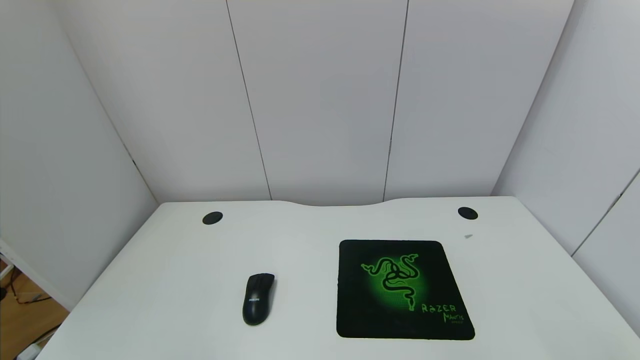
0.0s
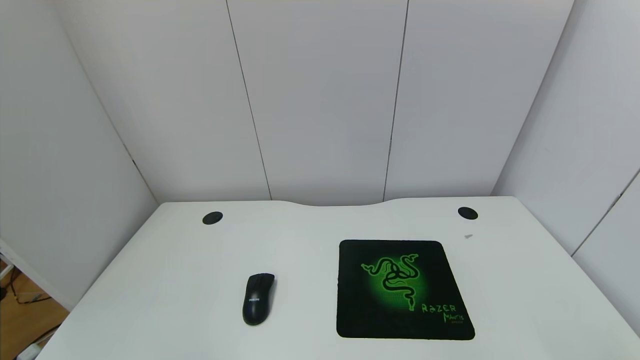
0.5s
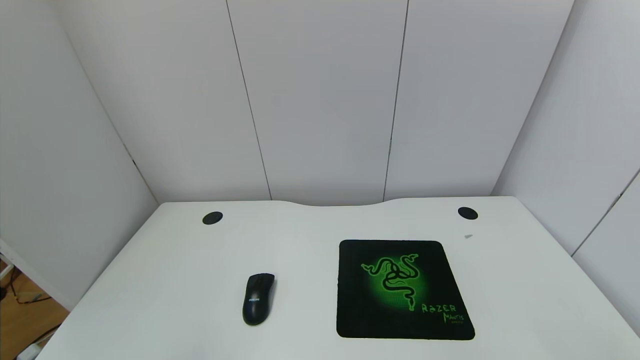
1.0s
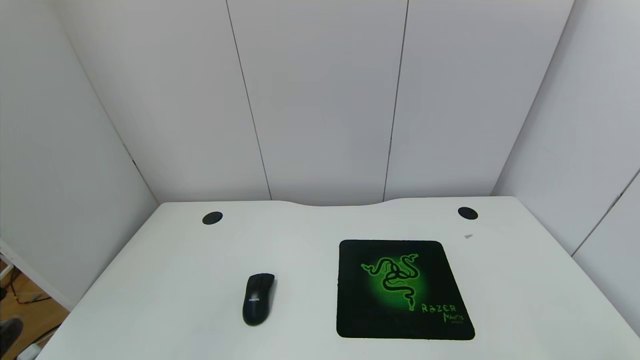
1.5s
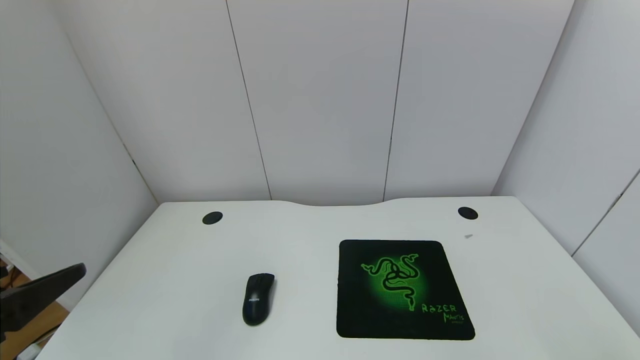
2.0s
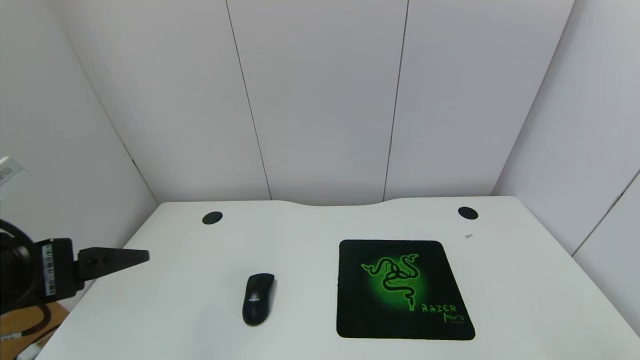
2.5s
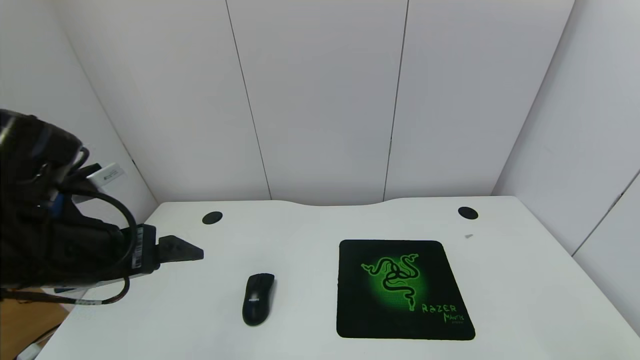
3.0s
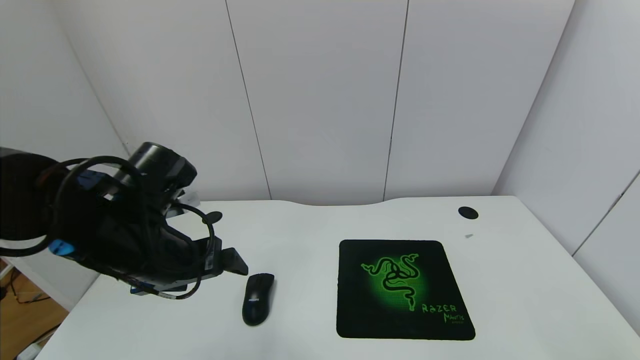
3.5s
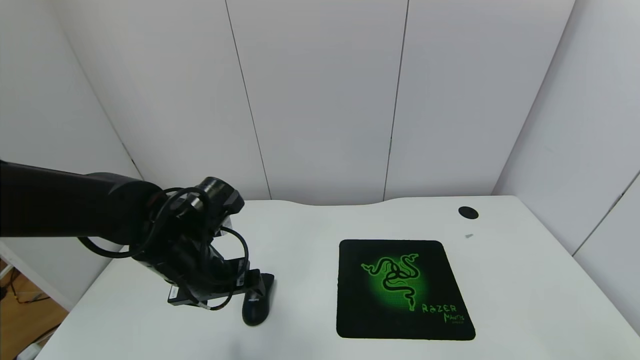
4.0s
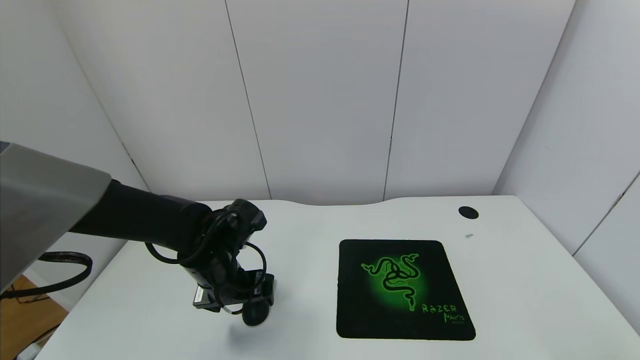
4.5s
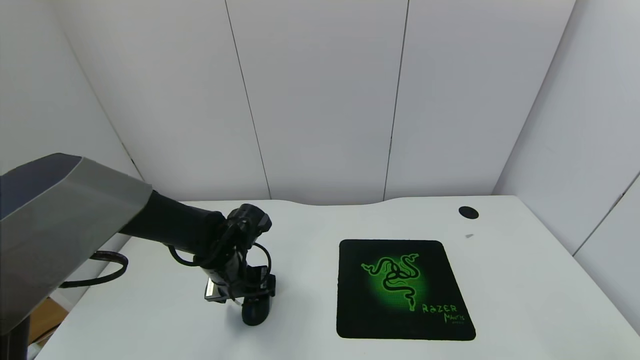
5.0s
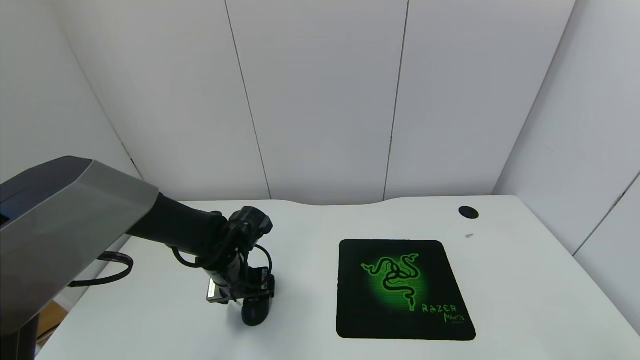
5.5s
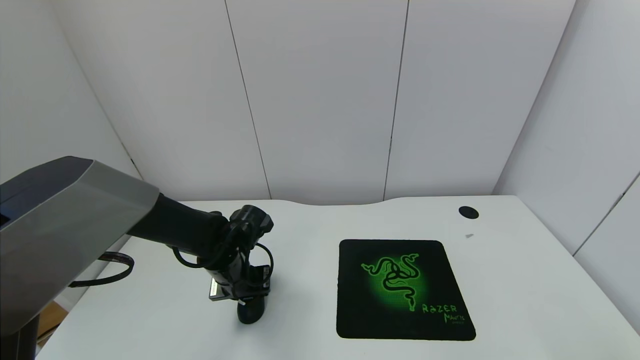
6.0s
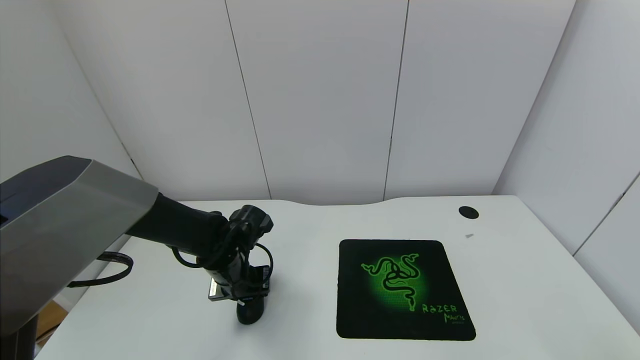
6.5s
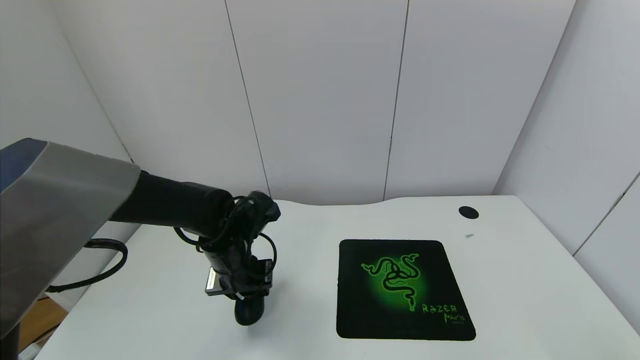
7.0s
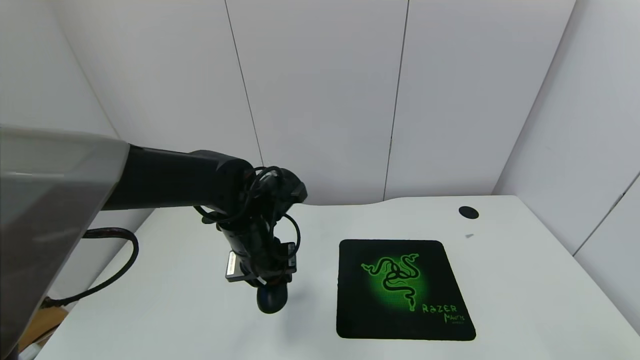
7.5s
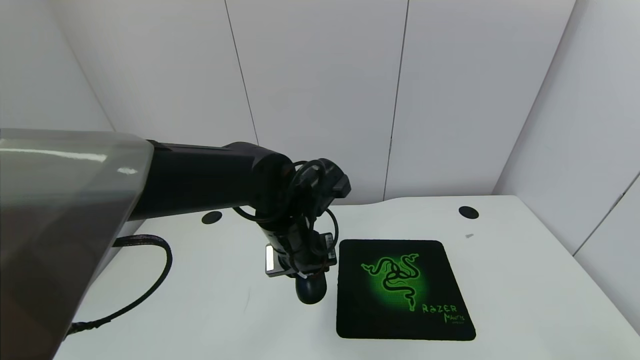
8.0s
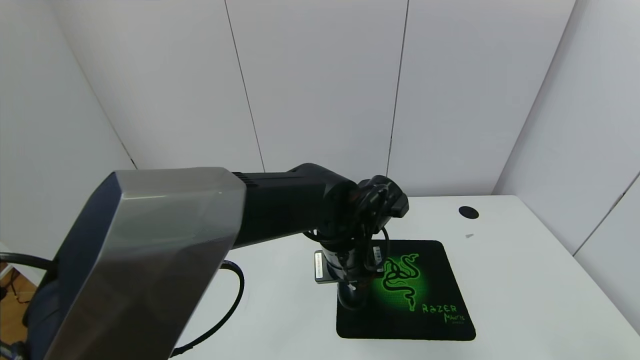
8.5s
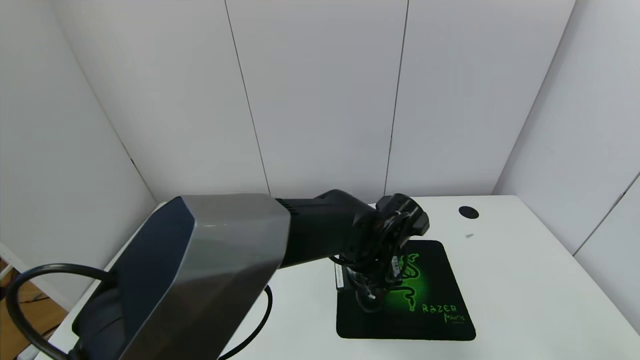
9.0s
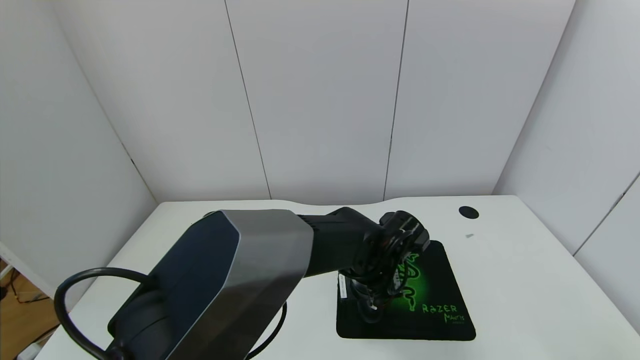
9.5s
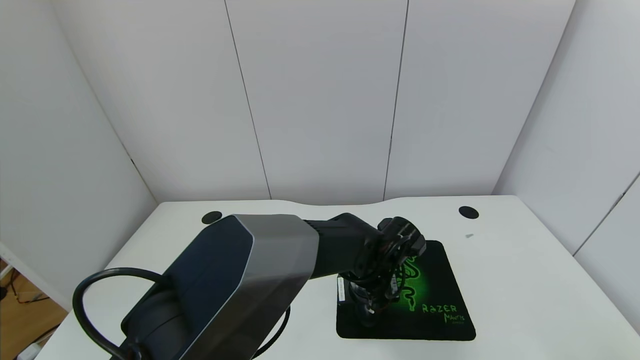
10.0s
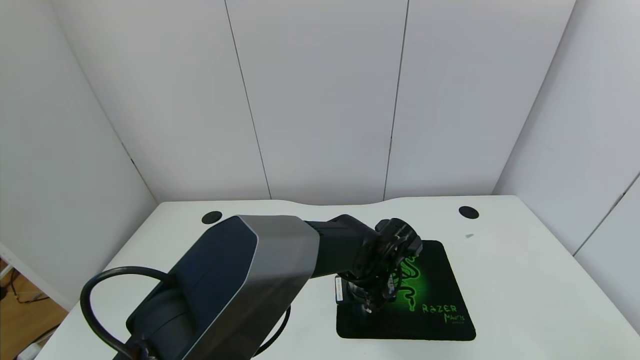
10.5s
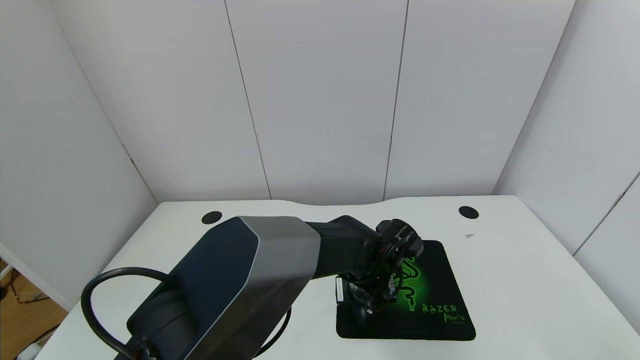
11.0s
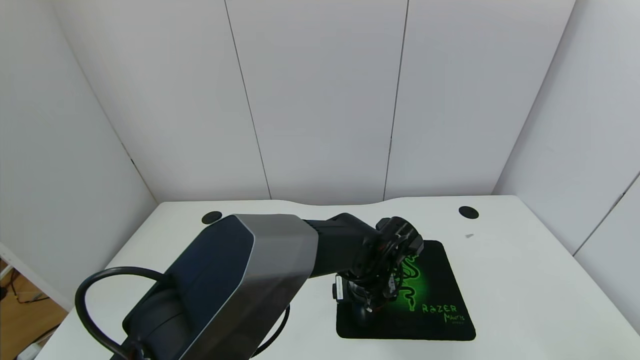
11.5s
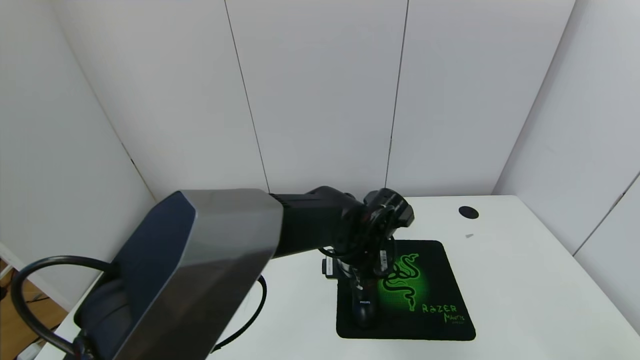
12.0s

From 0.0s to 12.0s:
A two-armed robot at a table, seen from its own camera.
Task of the whole recording: use the gripper to move the mouse from one side of the table to the mouse pad on the opposite side.
Step, from 0.0s to 6.0s: Grasp the mouse with the left gripper.
Step, from 6.5s to 12.0s: Place the mouse on the mouse pad with the left gripper.
From 0.0s to 2.0s: The left gripper is displaced upward and forward by some 20 cm.
From 2.0s to 4.0s: The left gripper is displaced forward, to the right and downward by about 25 cm.
From 4.0s to 6.0s: The left gripper goes some 10 cm downward and forward, and closes.
From 6.0s to 8.0s: The left gripper moves to the right and upward, about 15 cm.
From 8.0s to 10.0s: The left gripper moves to the right and downward, roughly 15 cm.
From 10.0s to 12.0s: The left gripper ends up about 5 cm from where it was, and opens its fingers.

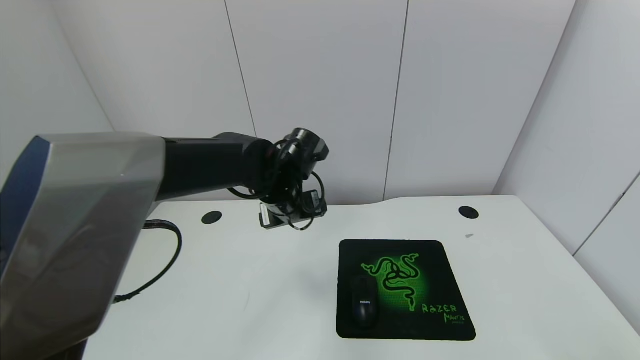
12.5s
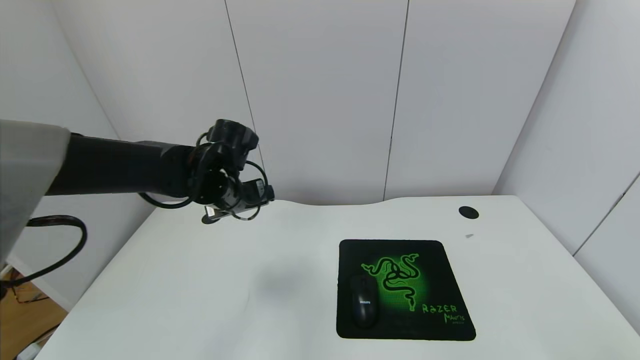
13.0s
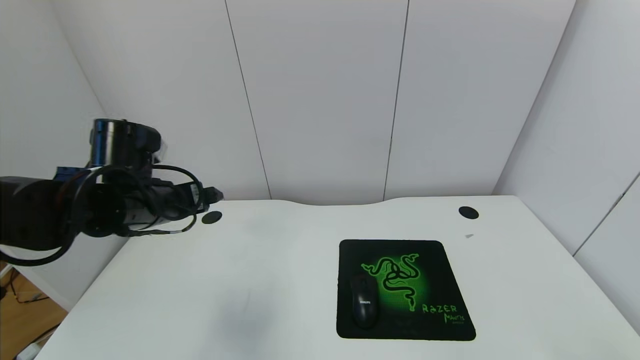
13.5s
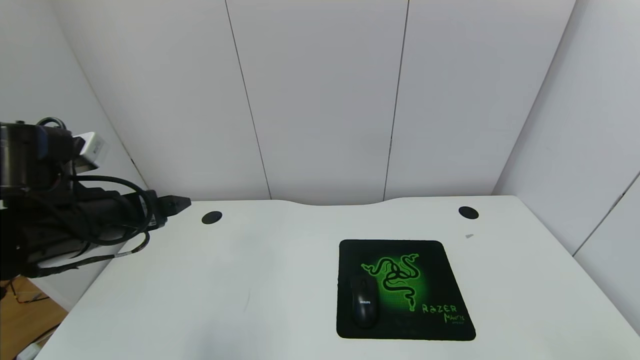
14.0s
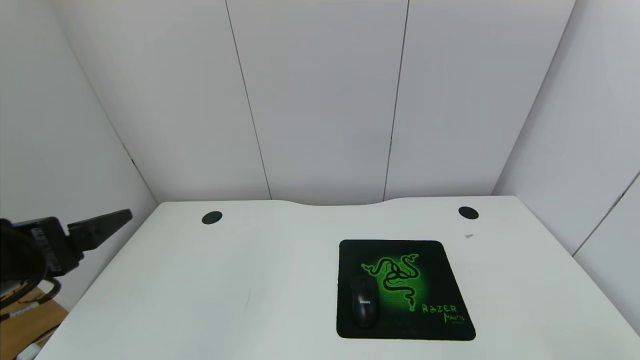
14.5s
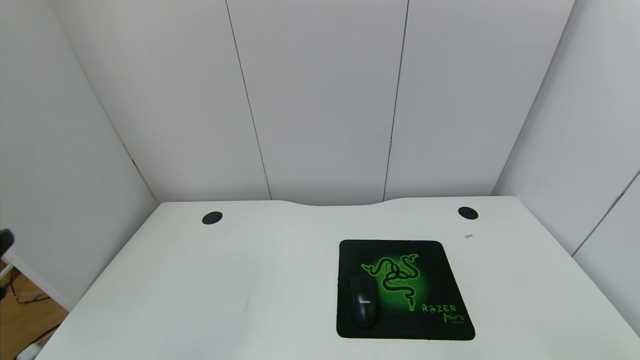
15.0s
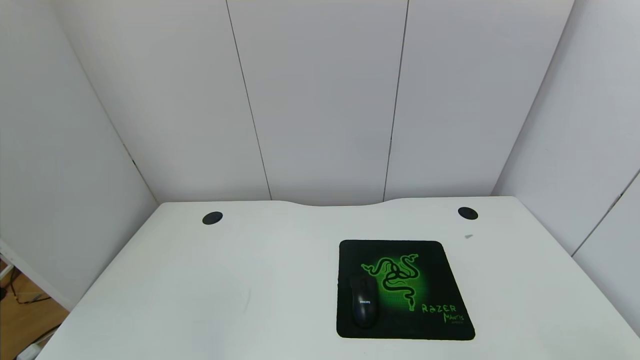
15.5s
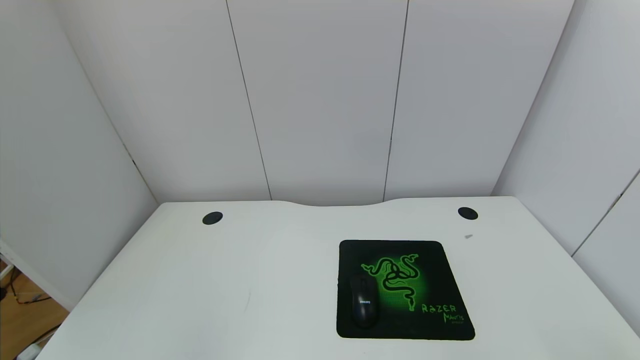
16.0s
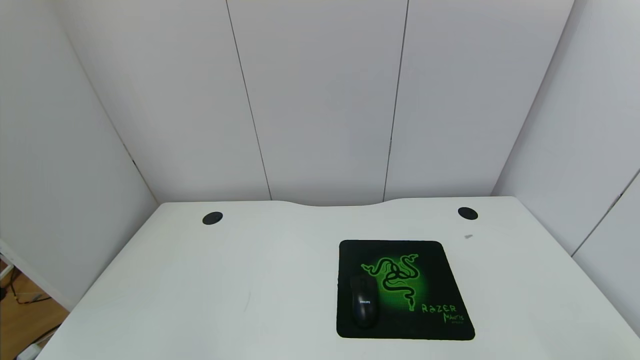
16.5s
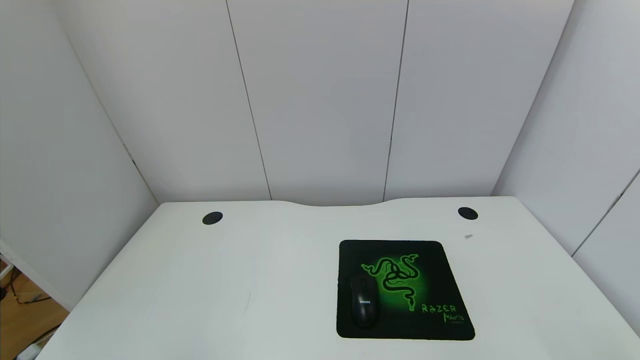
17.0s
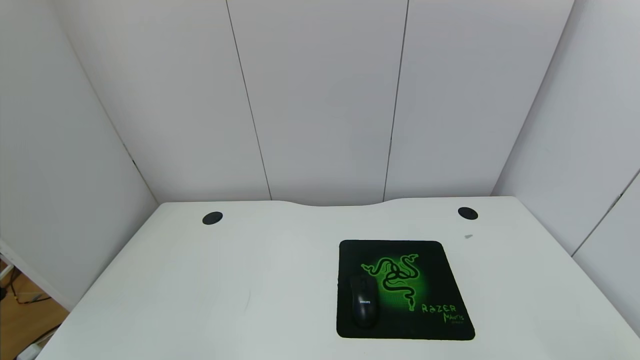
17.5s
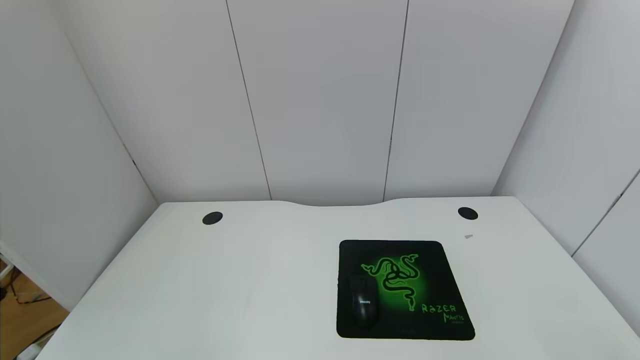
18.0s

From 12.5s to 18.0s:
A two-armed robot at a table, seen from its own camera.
Task of the whole recording: use the gripper to move the mouse from one side of the table to the mouse pad on the opposite side.
From 12.5s to 14.5s: The left gripper heads backward and to the left, covering approximately 30 cm.
From 14.5s to 16.0s: The left gripper shifts some 20 cm backward.
